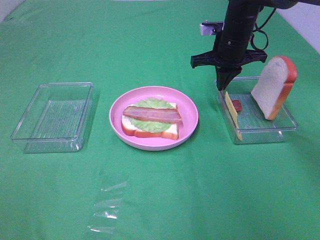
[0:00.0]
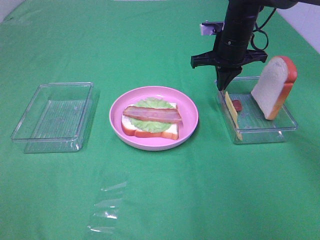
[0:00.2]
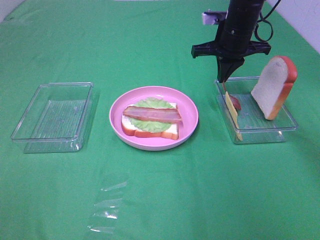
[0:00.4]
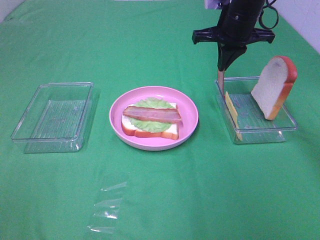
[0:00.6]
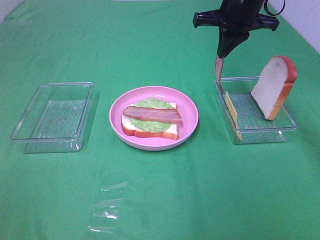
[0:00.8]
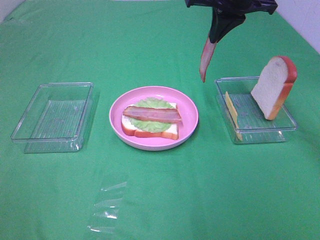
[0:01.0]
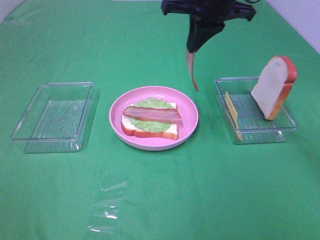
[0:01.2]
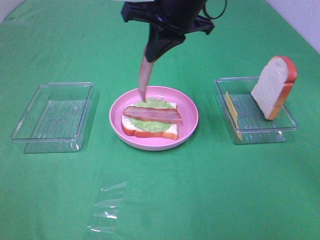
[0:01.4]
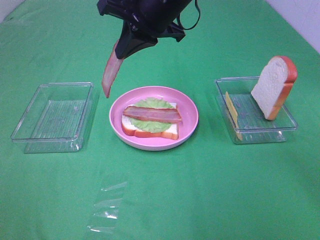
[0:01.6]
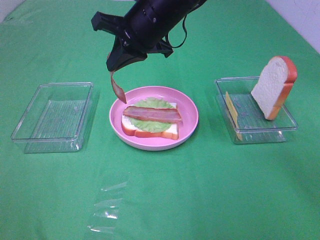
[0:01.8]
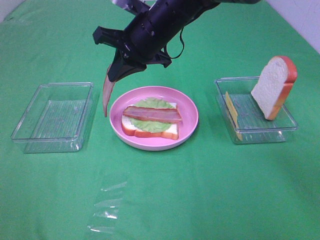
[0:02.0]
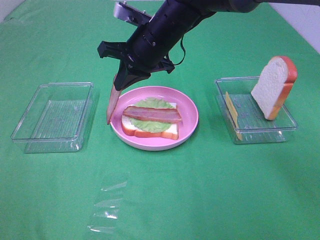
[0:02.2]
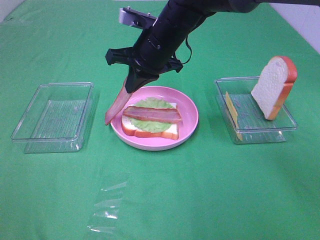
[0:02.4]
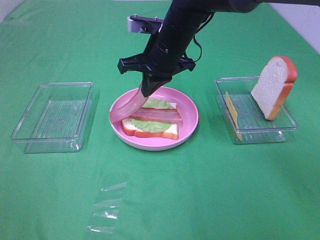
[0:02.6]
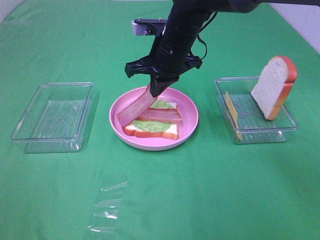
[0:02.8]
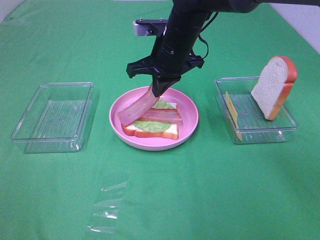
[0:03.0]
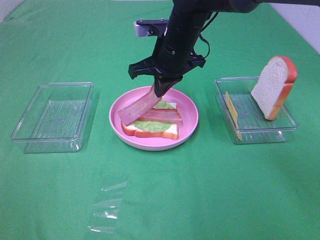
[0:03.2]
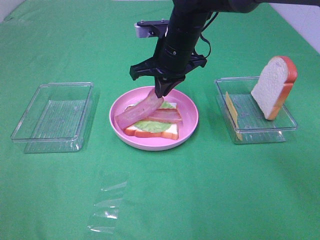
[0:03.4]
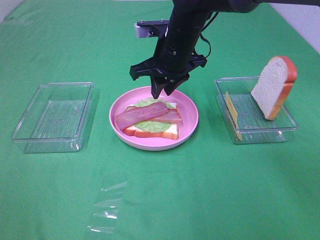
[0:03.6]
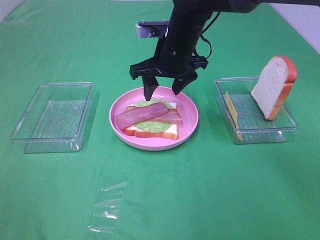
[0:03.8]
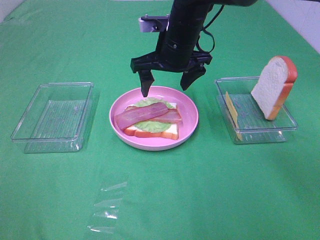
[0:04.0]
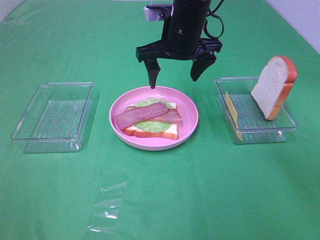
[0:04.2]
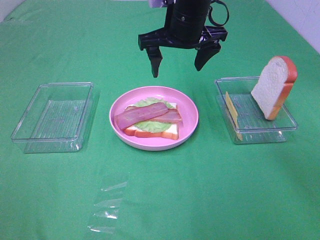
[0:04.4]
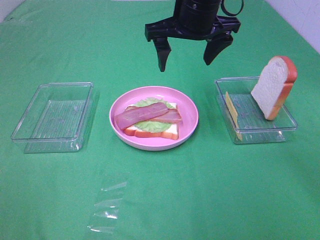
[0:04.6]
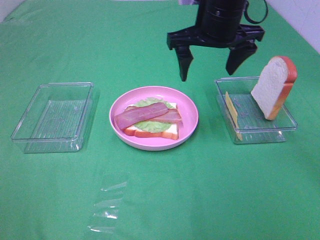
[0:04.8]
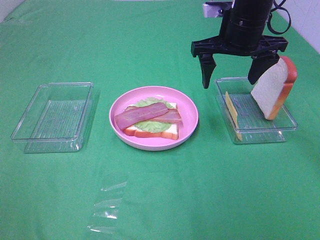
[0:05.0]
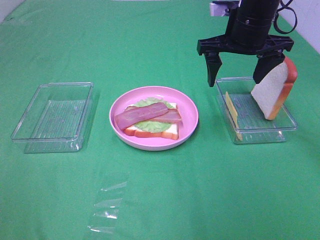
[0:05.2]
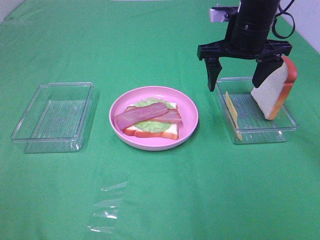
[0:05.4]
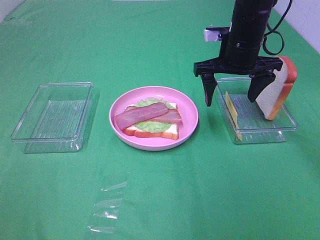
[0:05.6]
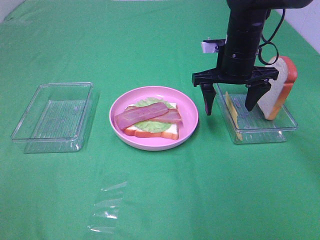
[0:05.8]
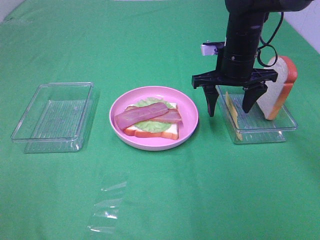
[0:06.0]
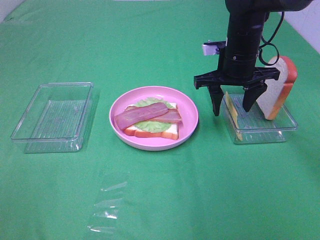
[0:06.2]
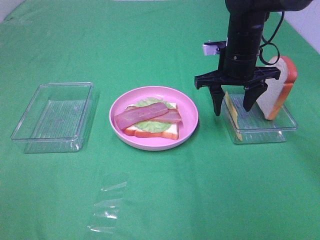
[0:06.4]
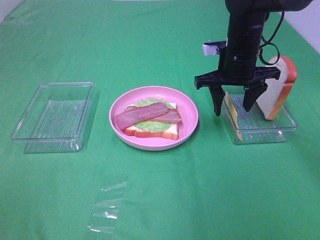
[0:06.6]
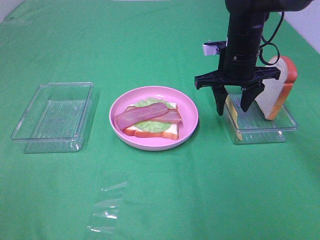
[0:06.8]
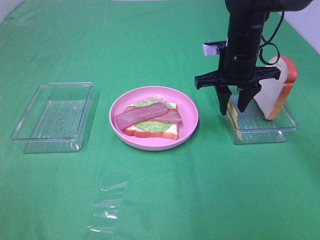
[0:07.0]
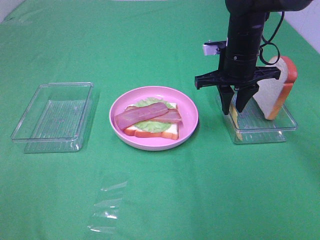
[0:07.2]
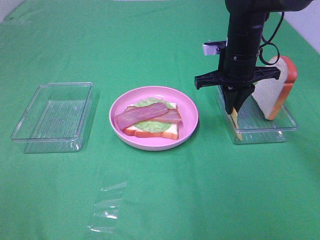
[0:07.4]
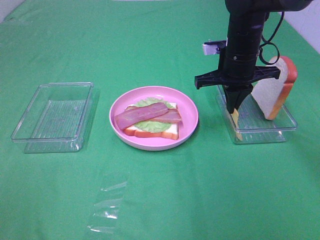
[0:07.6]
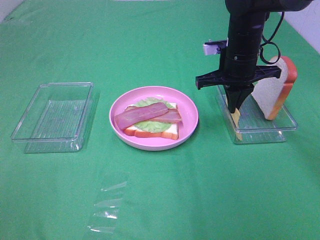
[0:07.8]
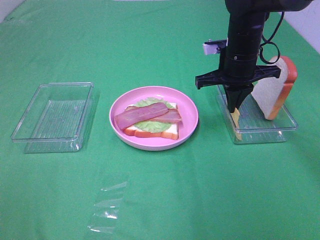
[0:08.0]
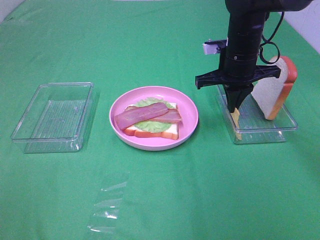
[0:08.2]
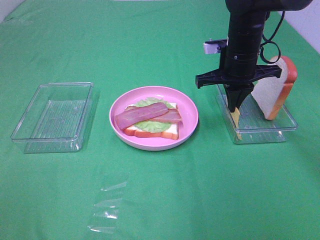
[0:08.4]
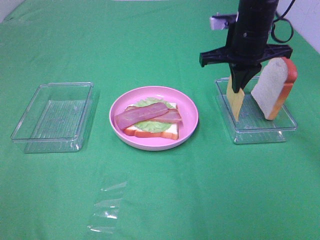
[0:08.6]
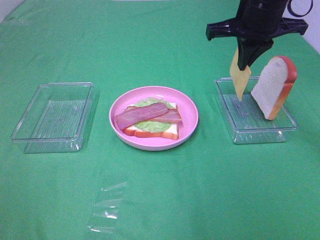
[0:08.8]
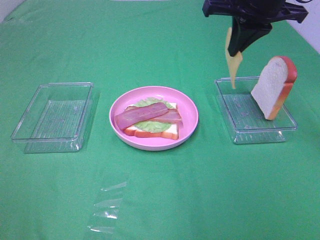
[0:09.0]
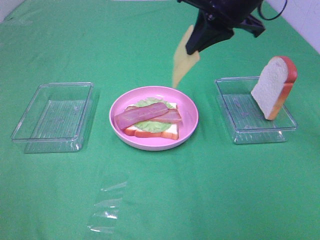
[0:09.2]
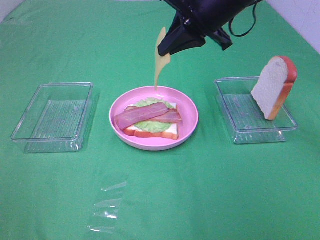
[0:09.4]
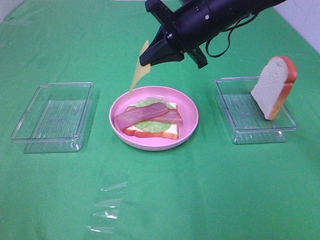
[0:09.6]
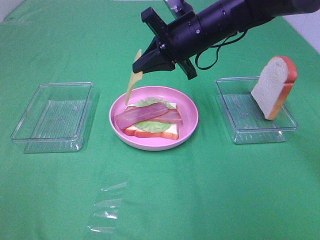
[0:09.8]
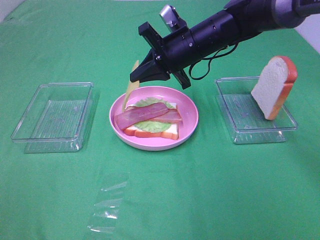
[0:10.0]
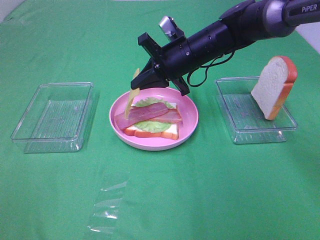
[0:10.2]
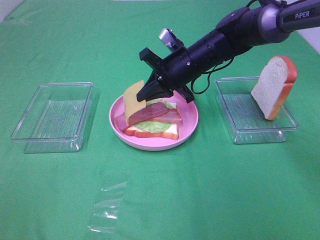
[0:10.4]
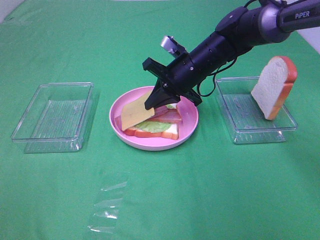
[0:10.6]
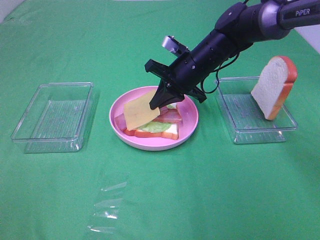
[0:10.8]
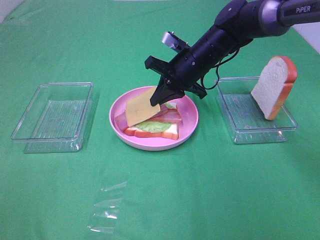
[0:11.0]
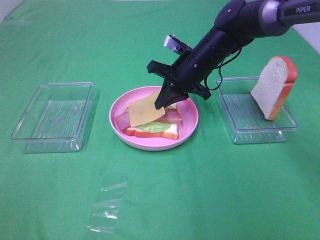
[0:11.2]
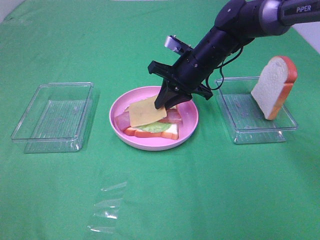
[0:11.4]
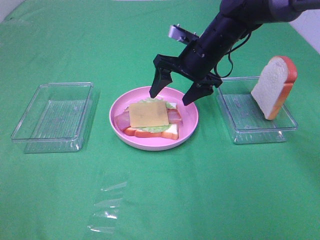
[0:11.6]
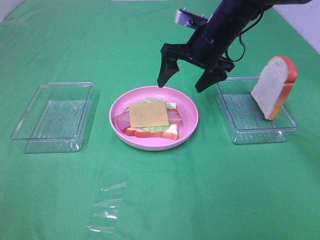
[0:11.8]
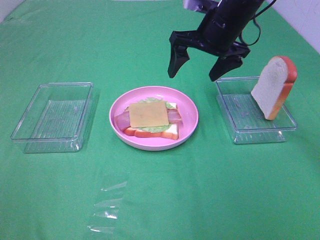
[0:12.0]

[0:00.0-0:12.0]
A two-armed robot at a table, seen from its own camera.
Task of the whole recording: Make sandwiches.
Step, 0:00.0 to 0:03.6: Right hand:place bacon on bacon.
Step, 0:03.8 to 0:07.6: Right hand:grab the cheese slice.
Step, 0:07.8 to 0:11.4: Right hand:place the cheese slice on top of the bacon.
0:00.0 to 0:01.6: The right gripper travels to the left, upward and backward by about 20 cm.
0:01.6 to 0:03.0: The right gripper is displaced downward by approximately 10 cm.
0:03.0 to 0:04.4: The right gripper shifts approximately 5 cm upward, and opens.
0:04.4 to 0:06.0: The right gripper is displaced to the right and downward by roughly 15 cm.
0:06.0 to 0:07.6: The right gripper closes its fingers.
0:07.6 to 0:09.0: The right gripper is displaced upward by approximately 15 cm.
0:09.0 to 0:10.4: The right gripper is displaced downward and to the left by some 20 cm.
0:10.4 to 0:12.0: The right gripper moves upward, about 10 cm, and opens up.

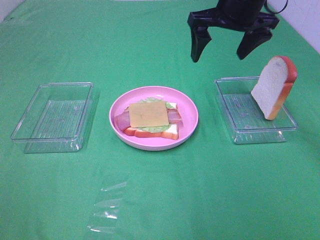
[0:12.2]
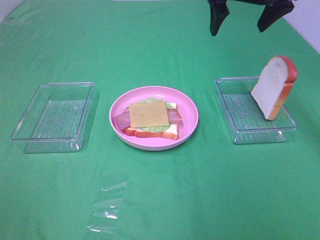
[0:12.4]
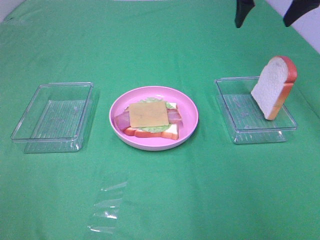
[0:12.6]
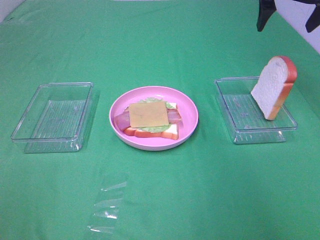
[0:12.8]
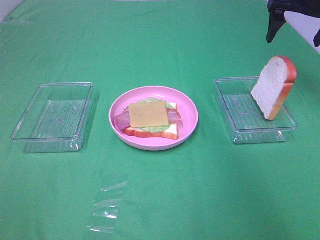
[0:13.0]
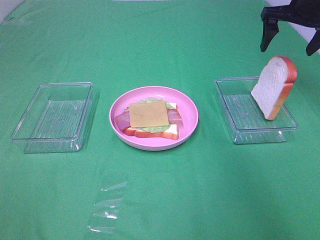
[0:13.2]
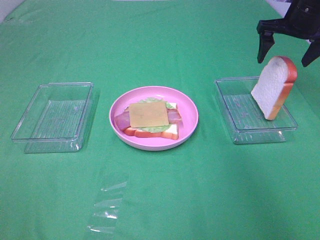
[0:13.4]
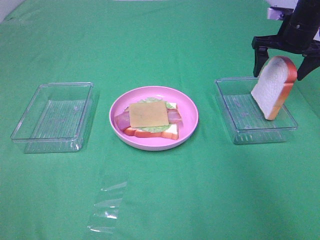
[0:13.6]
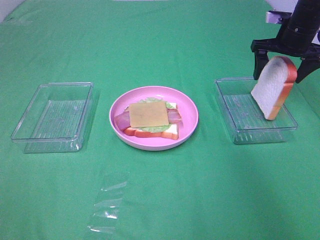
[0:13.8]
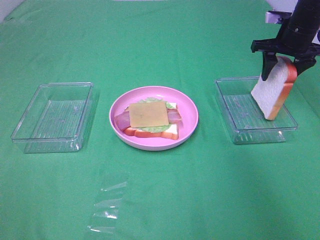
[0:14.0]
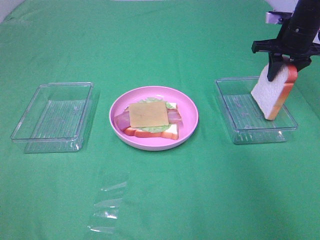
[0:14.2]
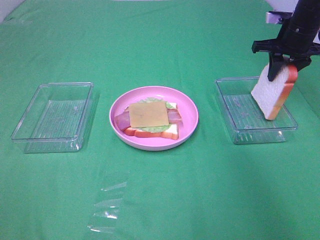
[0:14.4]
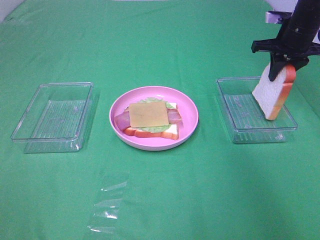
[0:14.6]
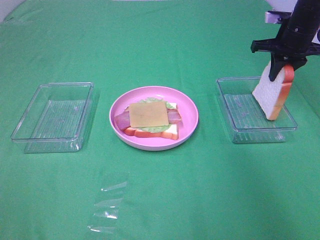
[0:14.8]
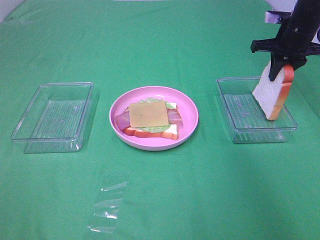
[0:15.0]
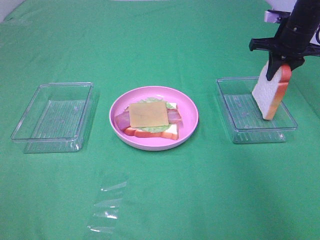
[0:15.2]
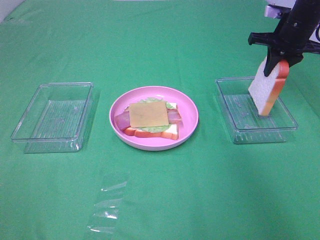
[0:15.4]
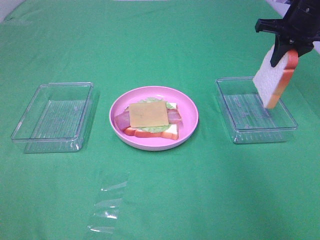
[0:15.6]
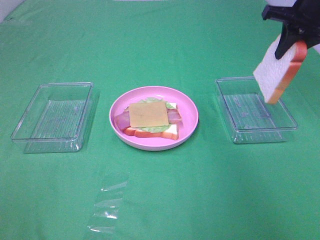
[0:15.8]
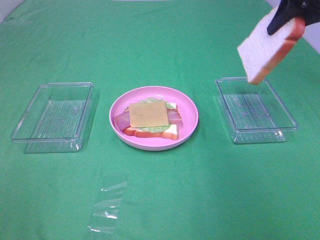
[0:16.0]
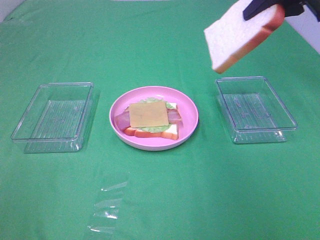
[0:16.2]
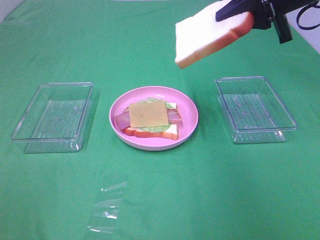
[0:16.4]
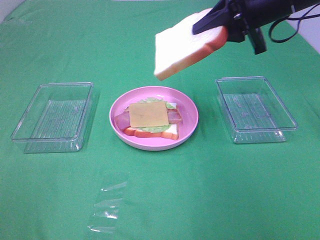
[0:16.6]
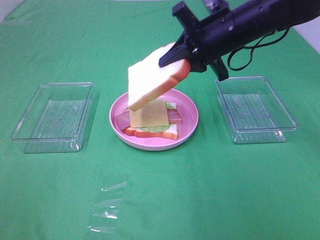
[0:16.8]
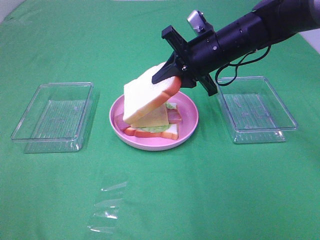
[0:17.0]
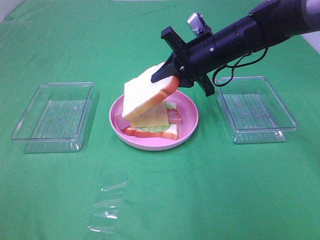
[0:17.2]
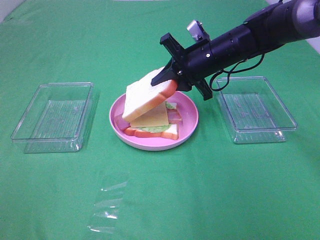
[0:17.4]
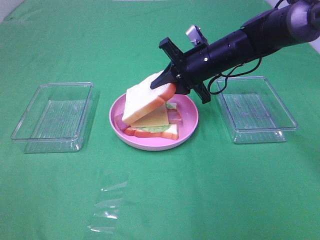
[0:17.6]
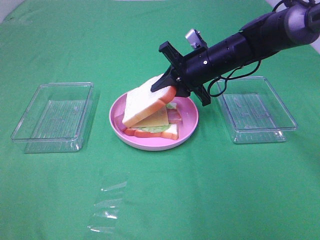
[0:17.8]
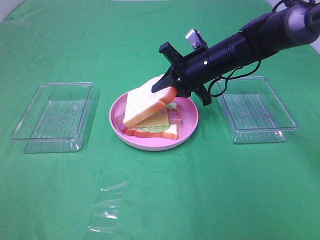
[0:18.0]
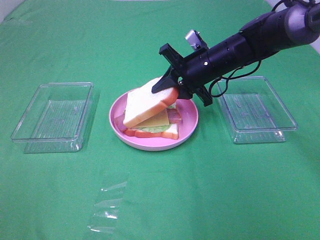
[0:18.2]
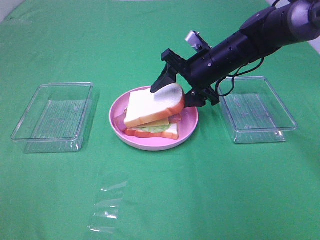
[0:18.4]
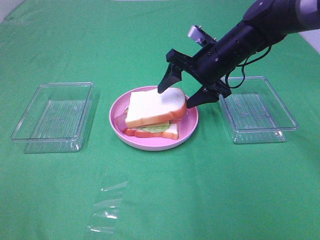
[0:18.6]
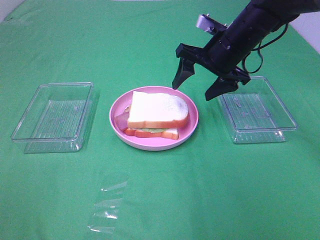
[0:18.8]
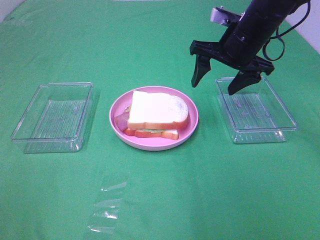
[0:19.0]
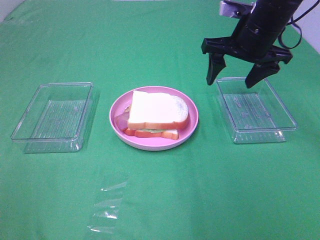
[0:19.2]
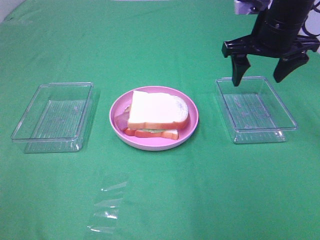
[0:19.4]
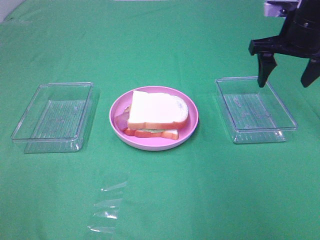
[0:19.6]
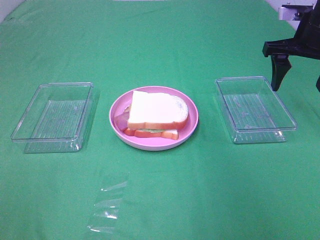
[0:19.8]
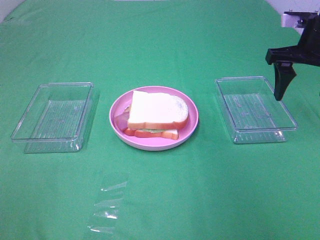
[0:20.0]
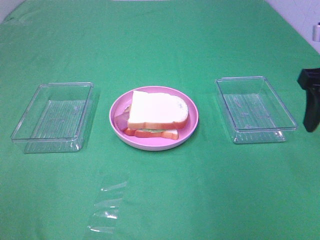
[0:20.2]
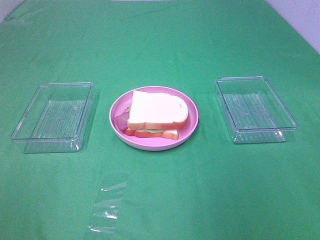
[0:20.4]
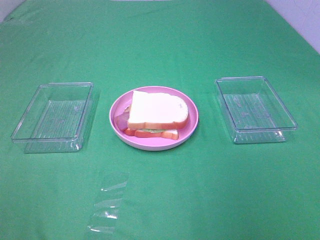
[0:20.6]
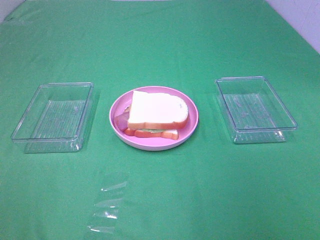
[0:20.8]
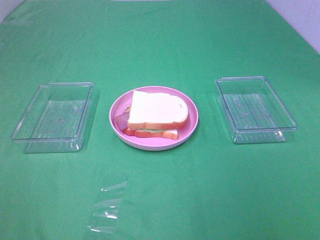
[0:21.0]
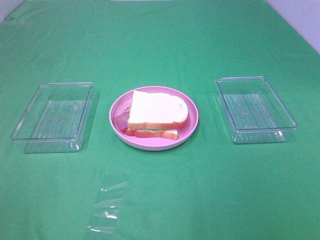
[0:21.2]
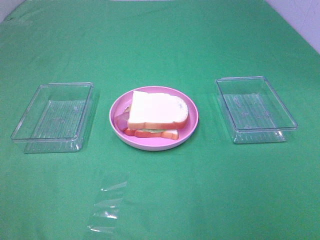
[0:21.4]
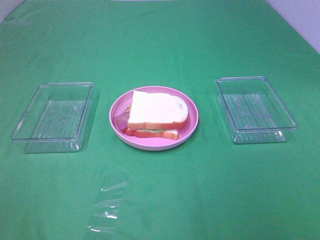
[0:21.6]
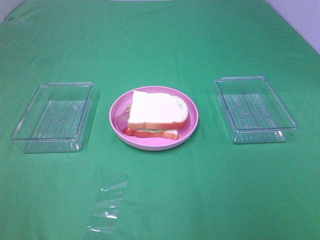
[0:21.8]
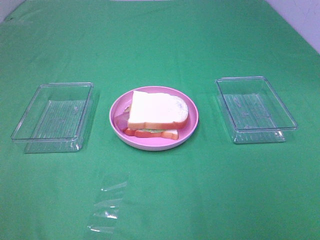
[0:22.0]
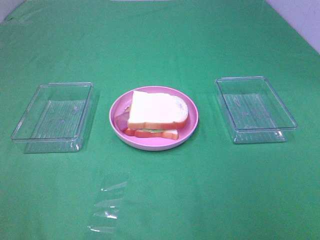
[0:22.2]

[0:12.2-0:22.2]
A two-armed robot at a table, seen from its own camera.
Task of the whole recording: Make sandwiches.
Step, 0:12.2 to 0:14.6: Right hand:grab the bread slice.
Step, 0:14.8 to 0:18.6: Right hand:place the bread slice on the cheese slice.
0:12.2 to 0:13.6: The right gripper is displaced to the right, downward and forward by some 20 cm.
0:13.6 to 0:15.0: The right gripper closes up.
0:15.0 to 0:16.4: The right gripper goes roughly 15 cm backward, upward and to the left.
0:16.4 to 0:18.0: The right gripper goes some 20 cm downward and to the left.
0:18.0 to 0:19.4: The right gripper travels upward and to the right by some 15 cm, and opens.
0:19.4 to 0:20.8: The right gripper goes some 30 cm backward.
